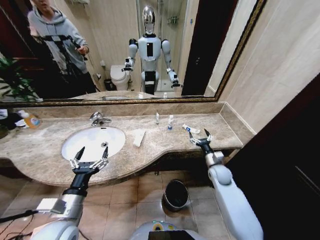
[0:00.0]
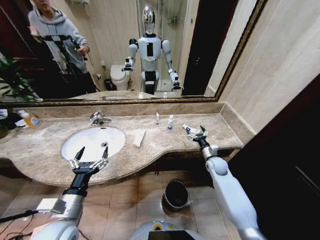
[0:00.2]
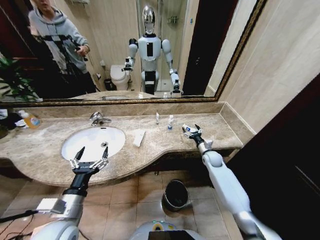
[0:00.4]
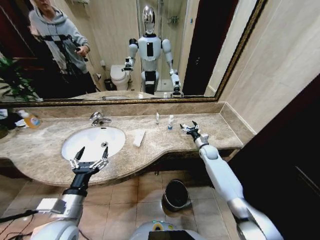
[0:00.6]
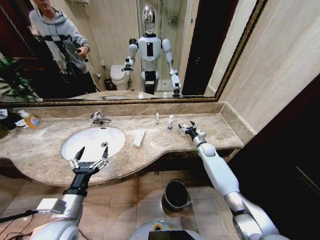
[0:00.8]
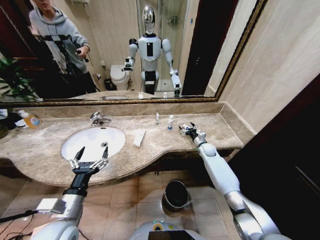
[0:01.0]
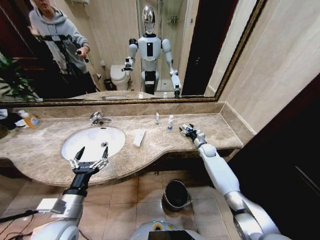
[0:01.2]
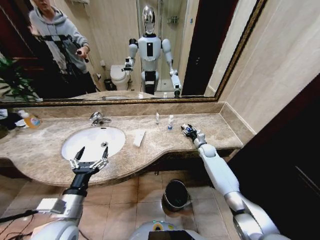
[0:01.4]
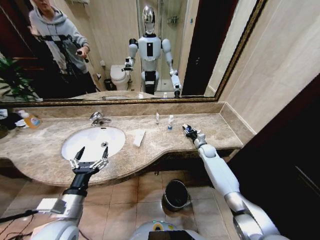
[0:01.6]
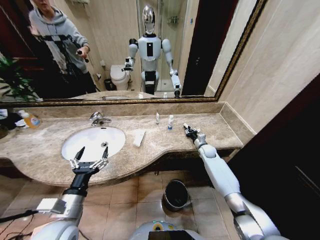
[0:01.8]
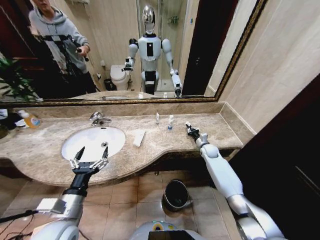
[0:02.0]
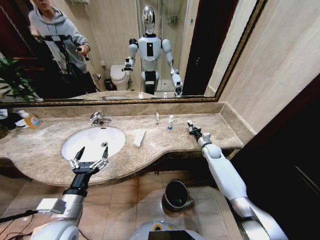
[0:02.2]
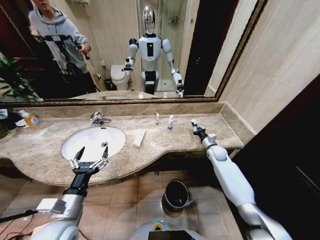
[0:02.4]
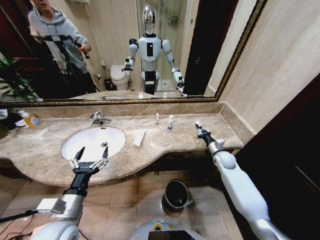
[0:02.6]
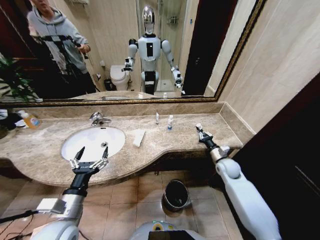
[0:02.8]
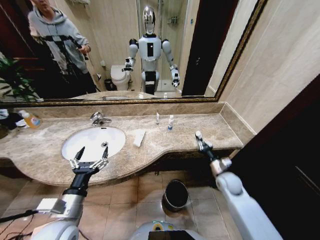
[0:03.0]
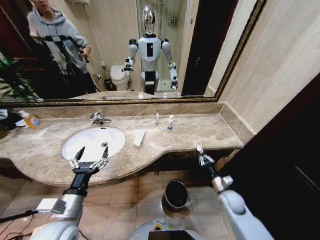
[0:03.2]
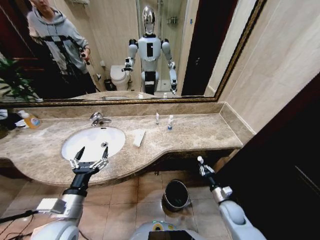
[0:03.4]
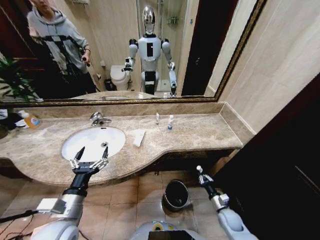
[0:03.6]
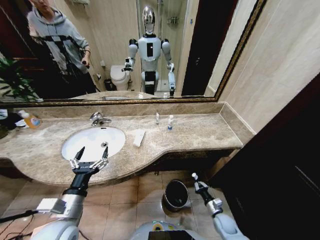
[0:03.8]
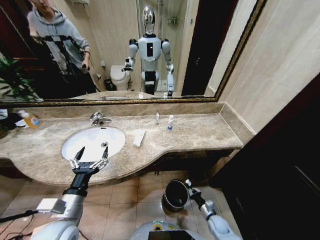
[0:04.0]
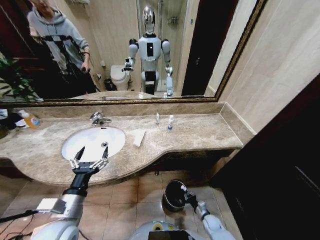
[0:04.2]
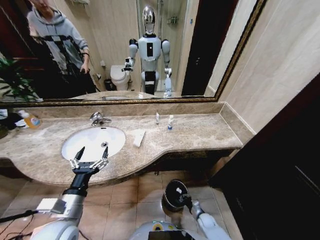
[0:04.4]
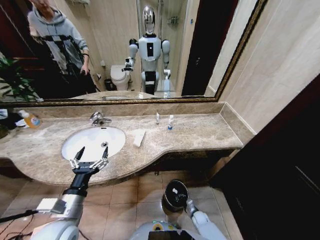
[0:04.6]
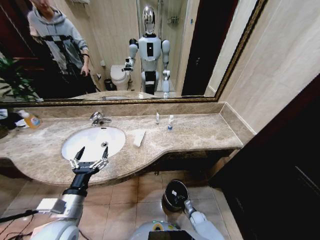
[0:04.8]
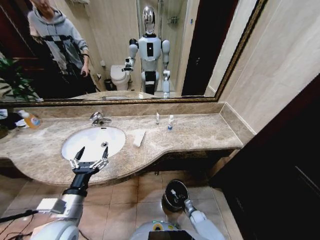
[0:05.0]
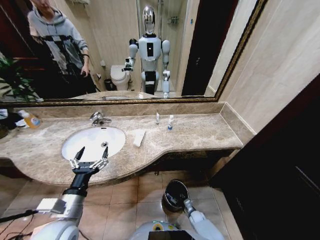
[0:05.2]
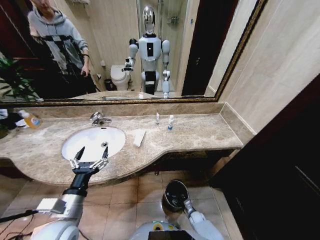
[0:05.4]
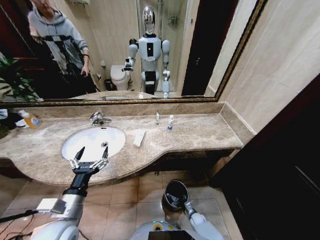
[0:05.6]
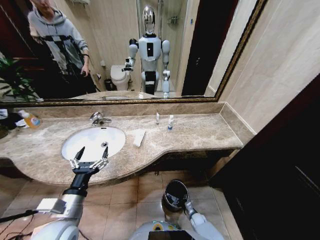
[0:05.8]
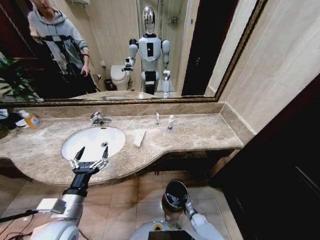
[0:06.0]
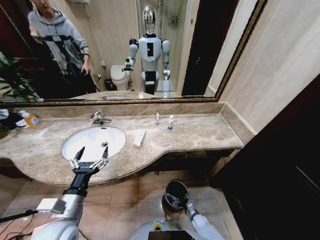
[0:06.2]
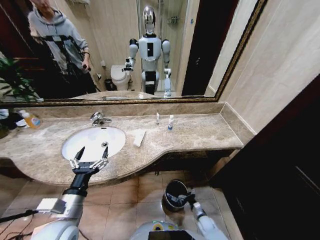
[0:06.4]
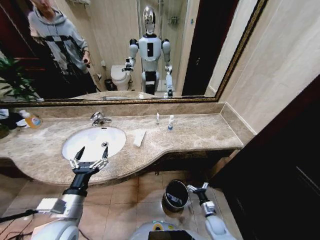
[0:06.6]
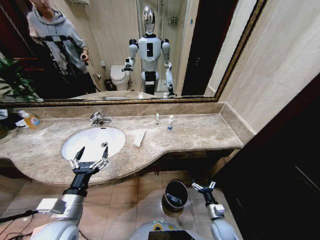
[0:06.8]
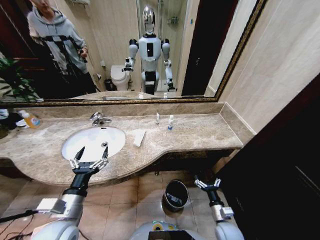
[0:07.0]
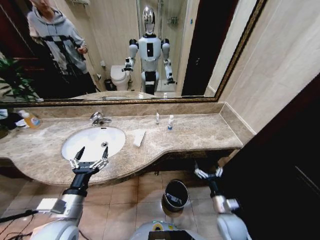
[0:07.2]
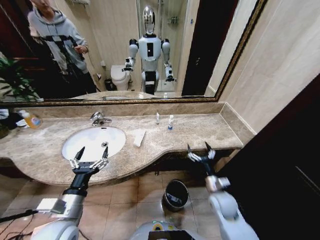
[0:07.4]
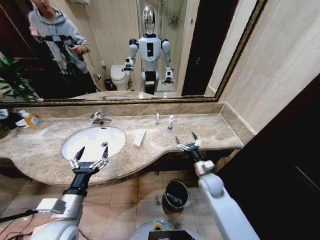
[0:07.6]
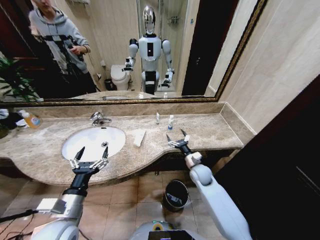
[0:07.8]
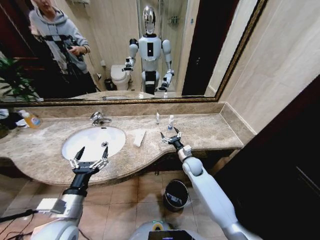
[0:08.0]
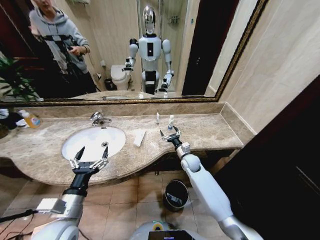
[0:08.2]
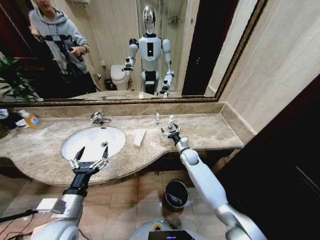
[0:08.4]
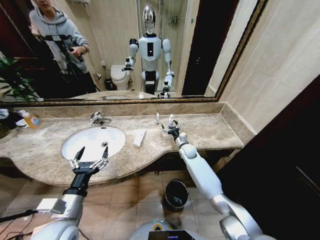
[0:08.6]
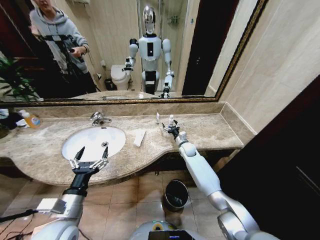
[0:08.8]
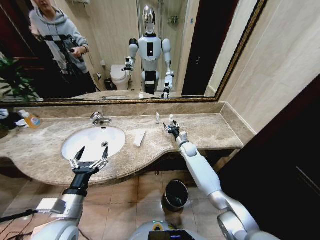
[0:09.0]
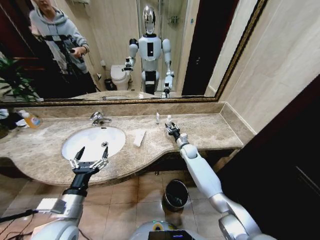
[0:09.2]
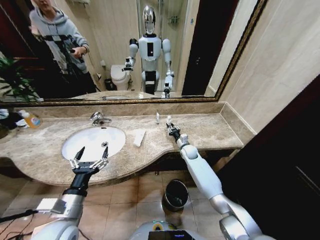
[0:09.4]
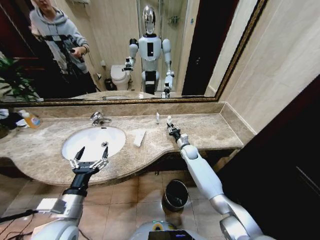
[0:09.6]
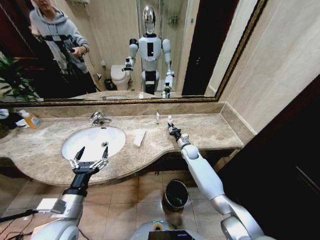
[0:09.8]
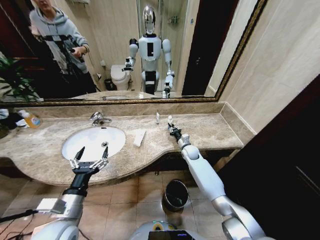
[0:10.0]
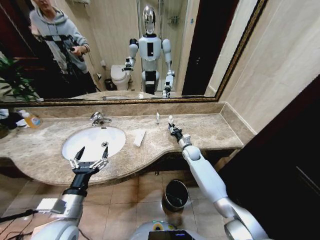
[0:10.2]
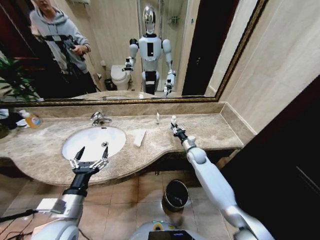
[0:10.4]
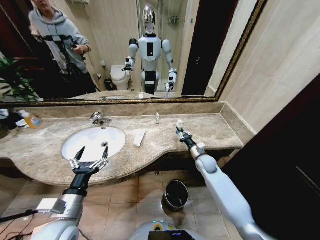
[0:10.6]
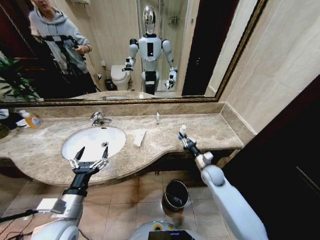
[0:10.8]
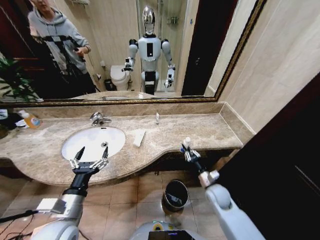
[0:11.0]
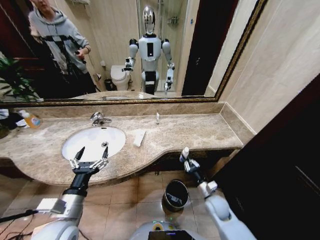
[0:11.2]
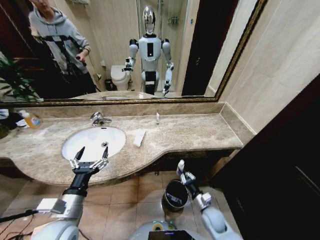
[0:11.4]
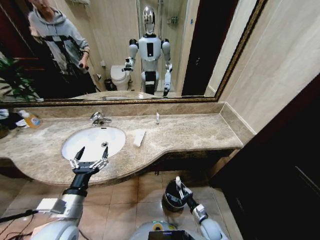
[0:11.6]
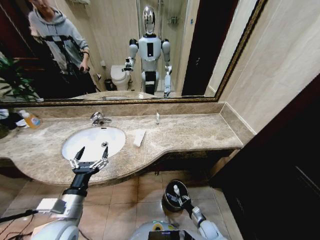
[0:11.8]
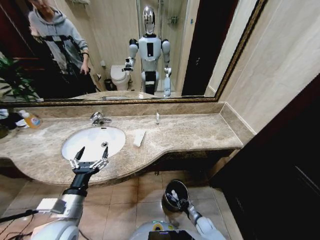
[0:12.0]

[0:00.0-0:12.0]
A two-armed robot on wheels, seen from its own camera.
Task of the whole recording: Pick up the trash from the sink and place it in the trash bin.
0:00.0 to 0:01.6: The right gripper moves forward, roughly 15 cm, and closes its fingers.
0:01.6 to 0:03.0: The right gripper is displaced backward by roughly 20 cm, and closes up.
0:03.0 to 0:04.4: The right gripper moves downward, about 30 cm.
0:04.4 to 0:06.0: The right gripper shifts by about 5 cm, and opens up.
0:06.0 to 0:07.6: The right gripper goes about 35 cm upward.
0:07.6 to 0:09.0: The right gripper moves forward, roughly 20 cm.
0:09.0 to 0:10.4: The right gripper ends up roughly 5 cm from where it was, and closes up.
0:10.4 to 0:12.0: The right gripper travels downward and backward by roughly 40 cm.

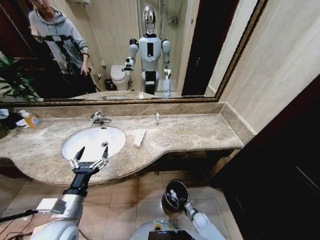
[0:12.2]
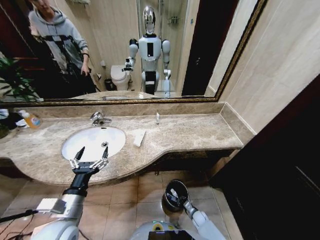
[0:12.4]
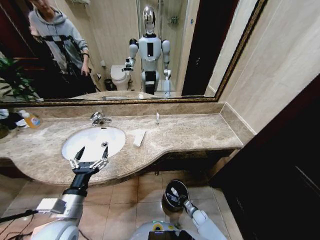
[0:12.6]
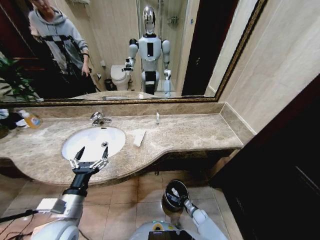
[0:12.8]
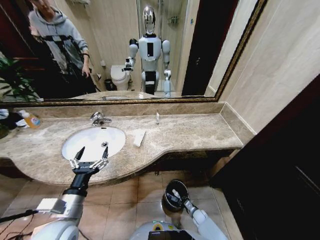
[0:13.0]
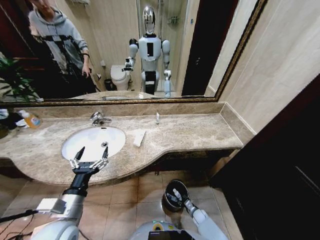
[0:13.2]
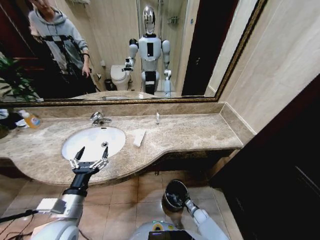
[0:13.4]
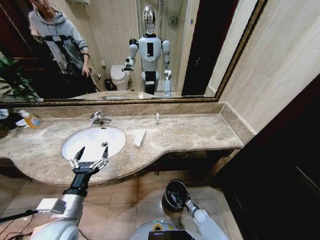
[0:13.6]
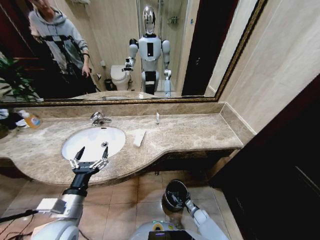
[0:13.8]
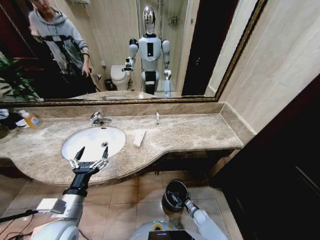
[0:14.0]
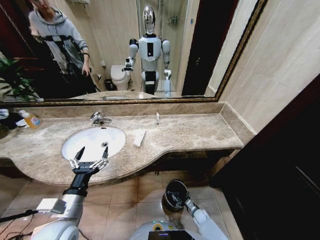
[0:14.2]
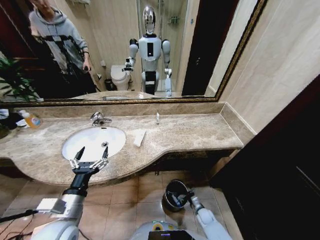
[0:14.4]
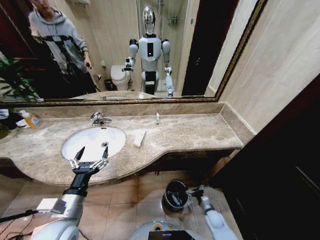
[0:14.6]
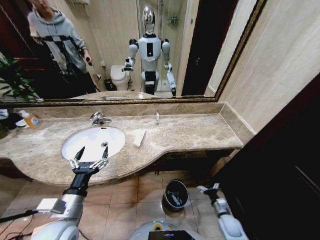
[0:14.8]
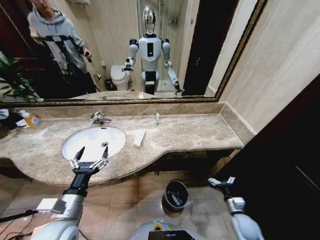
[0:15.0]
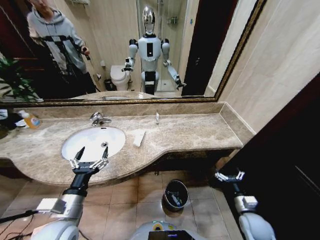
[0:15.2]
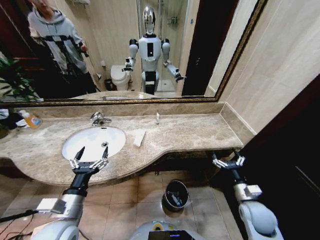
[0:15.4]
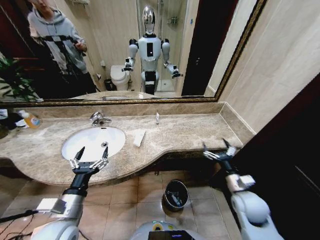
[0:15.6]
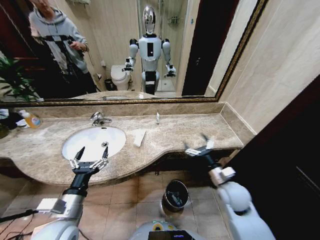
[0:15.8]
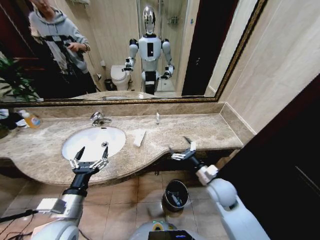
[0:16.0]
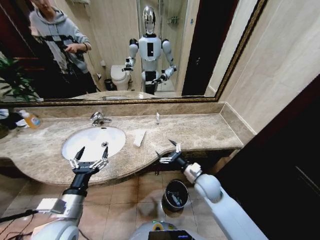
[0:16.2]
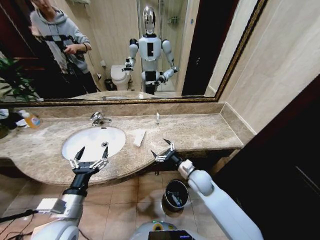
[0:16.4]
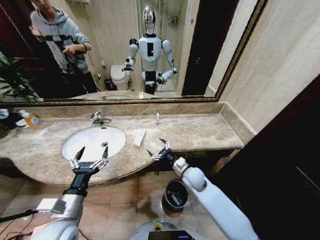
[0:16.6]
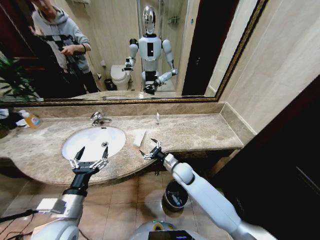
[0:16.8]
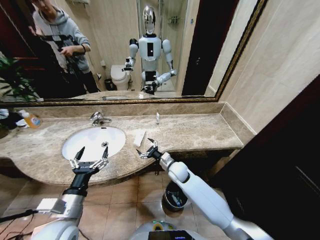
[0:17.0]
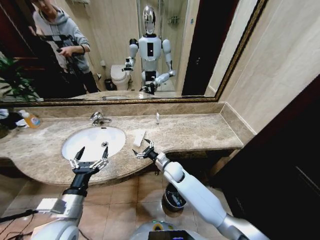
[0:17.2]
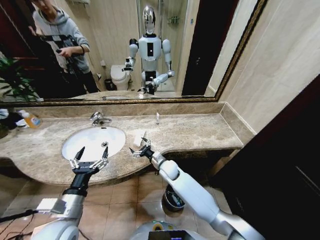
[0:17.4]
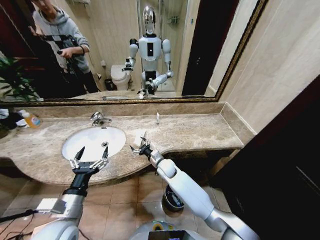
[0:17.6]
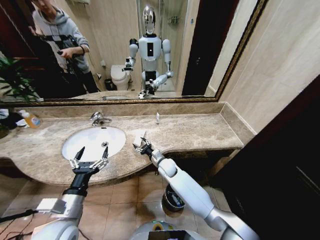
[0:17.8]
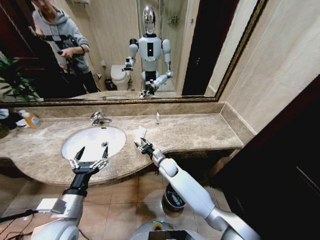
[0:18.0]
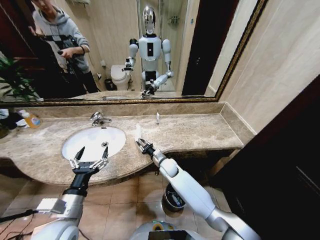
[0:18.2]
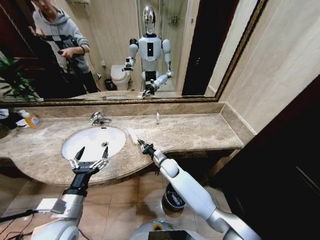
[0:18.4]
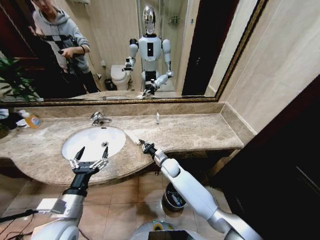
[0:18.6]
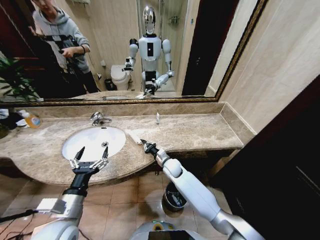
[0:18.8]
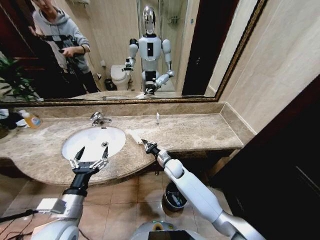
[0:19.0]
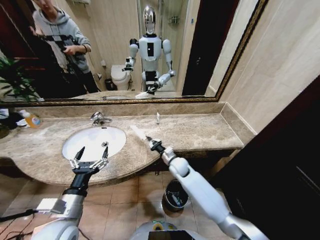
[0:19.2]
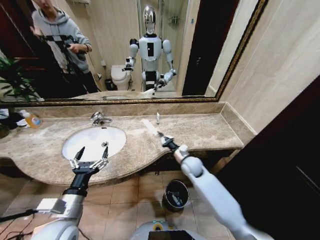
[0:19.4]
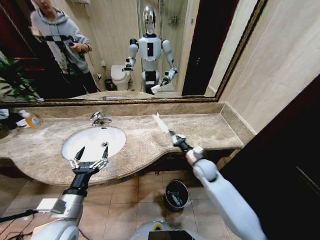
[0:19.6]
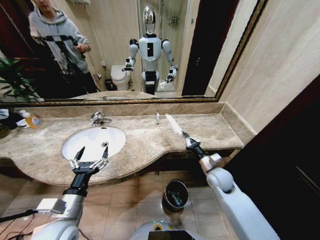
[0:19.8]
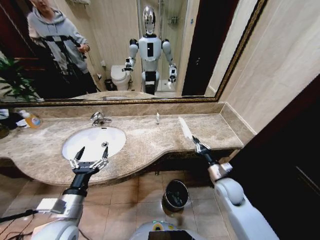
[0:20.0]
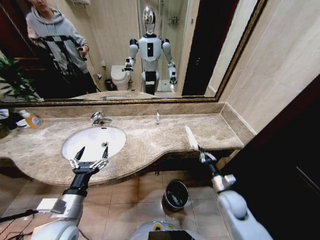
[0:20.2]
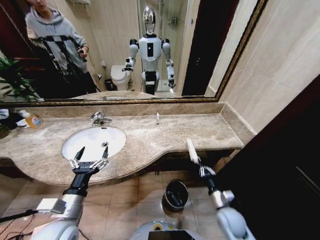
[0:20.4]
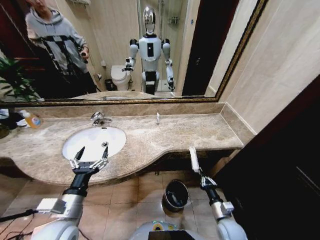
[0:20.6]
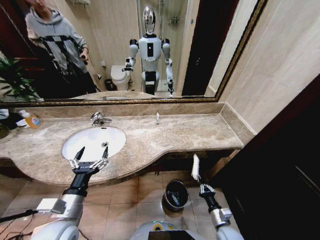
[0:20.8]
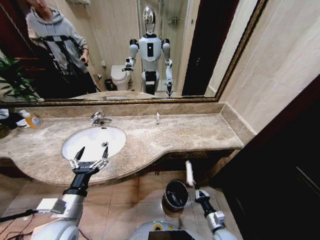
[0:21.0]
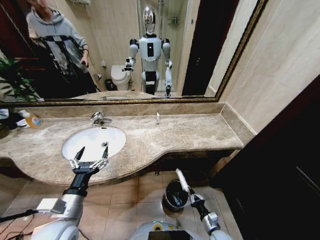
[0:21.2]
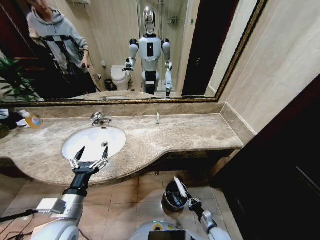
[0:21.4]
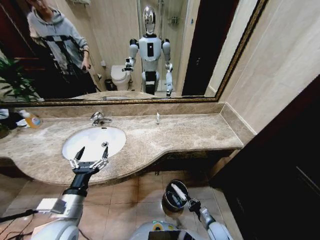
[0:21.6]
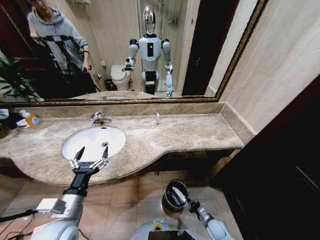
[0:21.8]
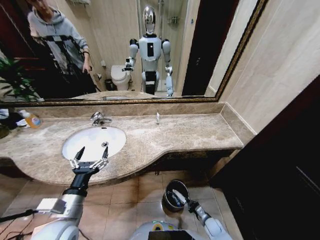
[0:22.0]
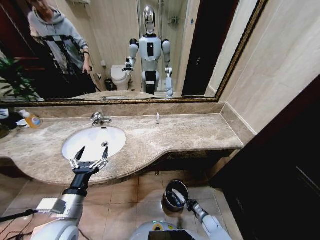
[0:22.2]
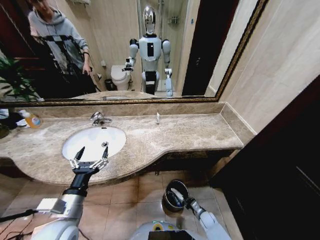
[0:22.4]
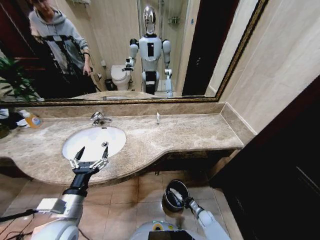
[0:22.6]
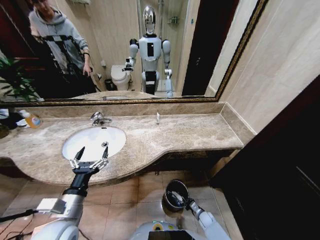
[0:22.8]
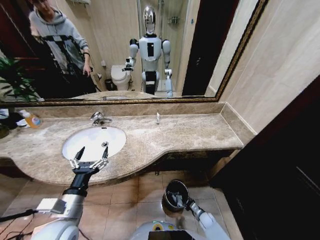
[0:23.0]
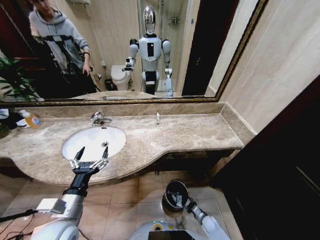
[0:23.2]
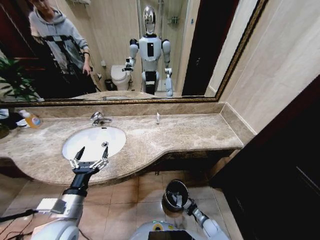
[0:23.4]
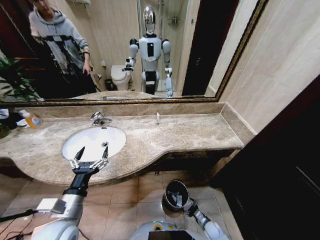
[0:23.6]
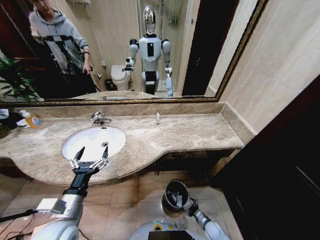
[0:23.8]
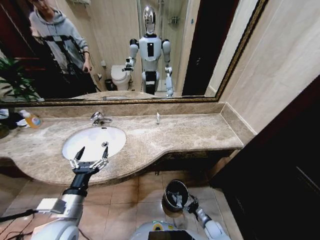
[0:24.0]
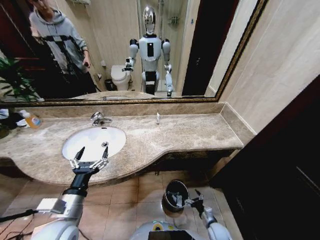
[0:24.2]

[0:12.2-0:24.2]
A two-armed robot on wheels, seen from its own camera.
Task of the whole recording: Pick up the trash from the sink and place it in the trash bin.
0:12.2 to 0:13.8: The right gripper opens its fingers.
0:13.8 to 0:15.2: The right gripper shifts approximately 30 cm upward and to the right.
0:15.2 to 0:16.6: The right gripper goes about 30 cm to the left and forward.
0:16.6 to 0:18.2: The right gripper heads to the left and forward, covering some 10 cm, and closes.
0:18.2 to 0:19.8: The right gripper is displaced to the right and backward by some 25 cm, and closes up.
0:19.8 to 0:21.2: The right gripper shifts approximately 30 cm downward and backward.
0:21.2 to 0:22.6: The right gripper shifts approximately 15 cm downward and forward.
0:22.6 to 0:24.2: The right gripper shifts about 10 cm upward and backward, and opens.
